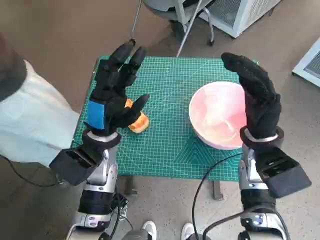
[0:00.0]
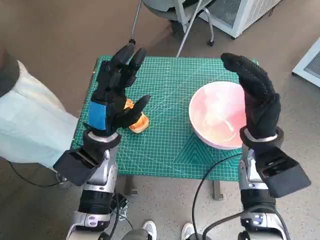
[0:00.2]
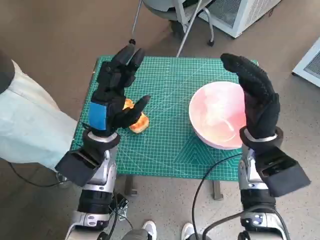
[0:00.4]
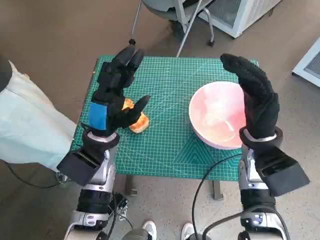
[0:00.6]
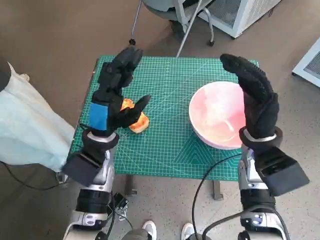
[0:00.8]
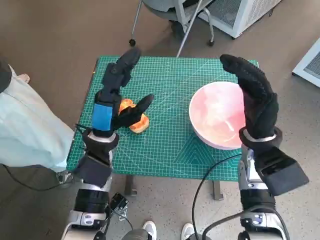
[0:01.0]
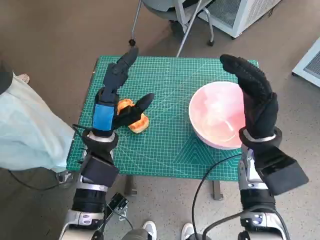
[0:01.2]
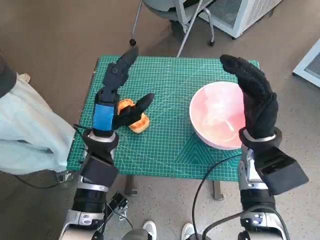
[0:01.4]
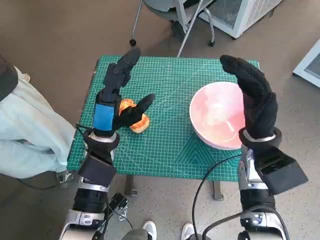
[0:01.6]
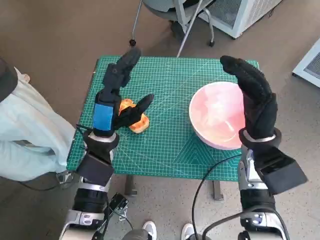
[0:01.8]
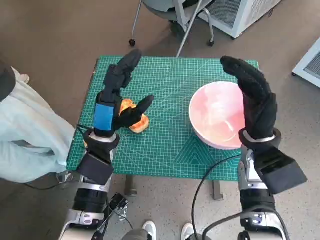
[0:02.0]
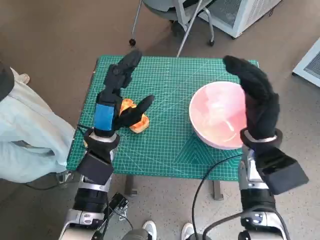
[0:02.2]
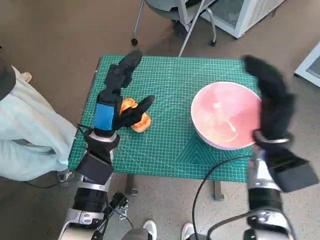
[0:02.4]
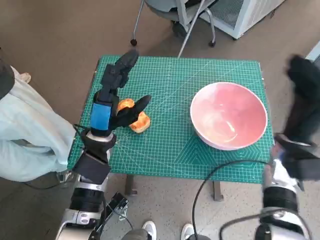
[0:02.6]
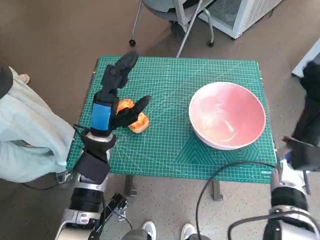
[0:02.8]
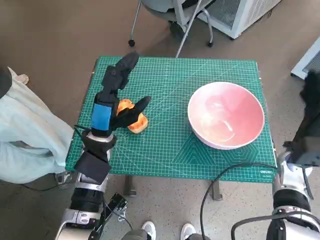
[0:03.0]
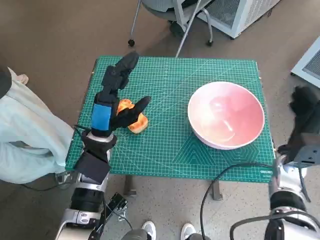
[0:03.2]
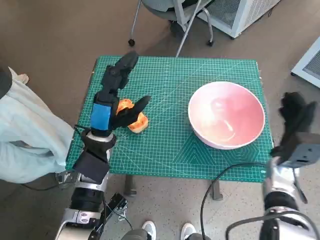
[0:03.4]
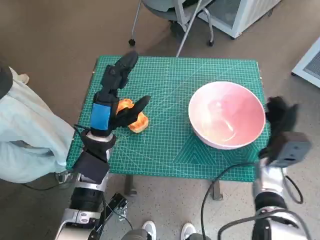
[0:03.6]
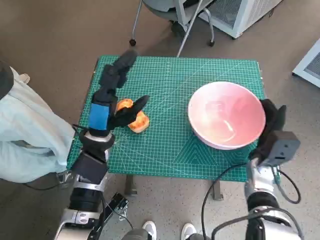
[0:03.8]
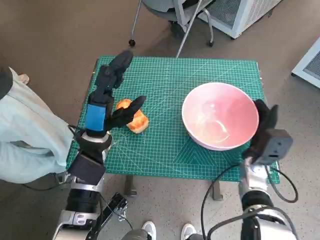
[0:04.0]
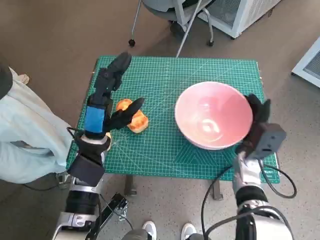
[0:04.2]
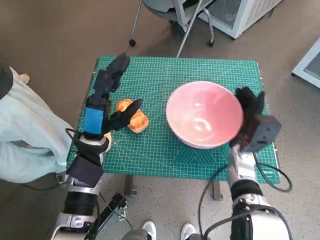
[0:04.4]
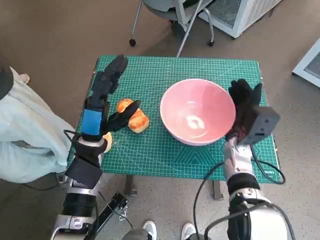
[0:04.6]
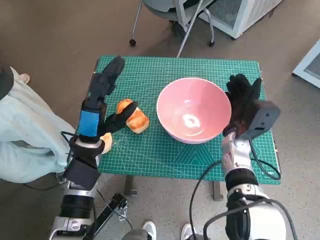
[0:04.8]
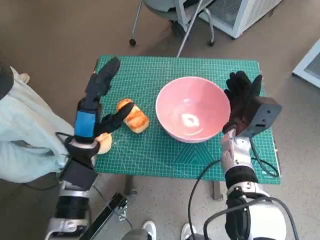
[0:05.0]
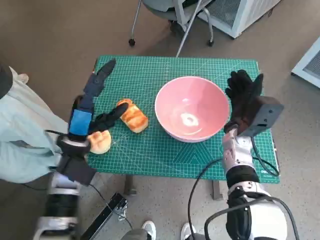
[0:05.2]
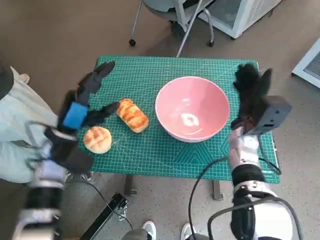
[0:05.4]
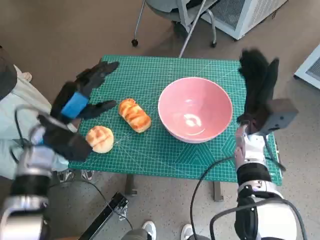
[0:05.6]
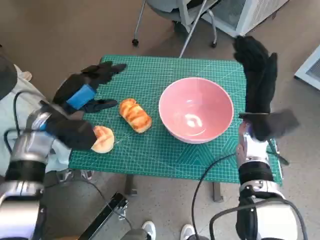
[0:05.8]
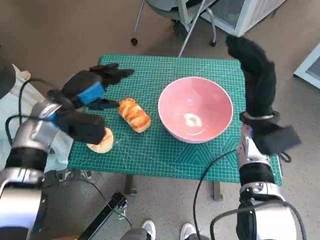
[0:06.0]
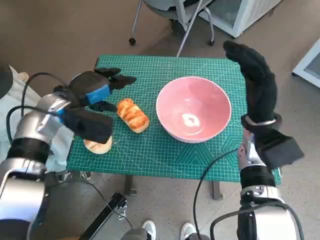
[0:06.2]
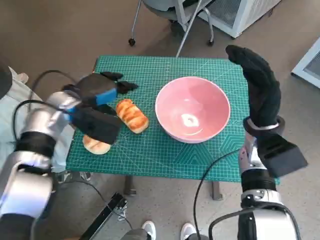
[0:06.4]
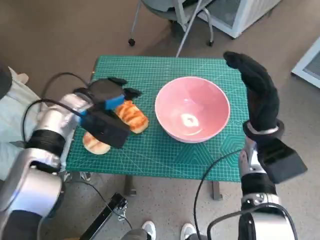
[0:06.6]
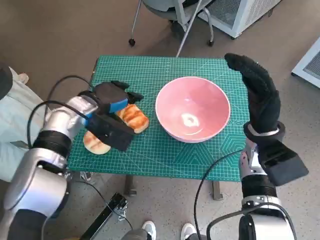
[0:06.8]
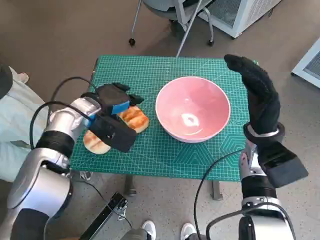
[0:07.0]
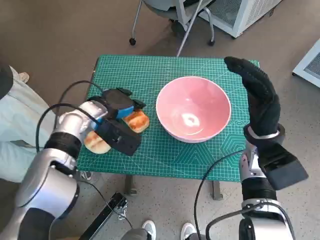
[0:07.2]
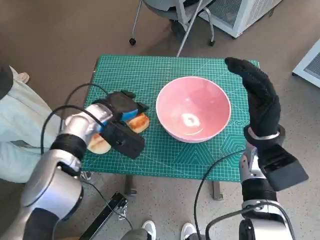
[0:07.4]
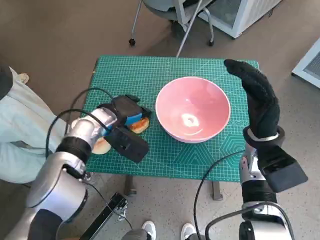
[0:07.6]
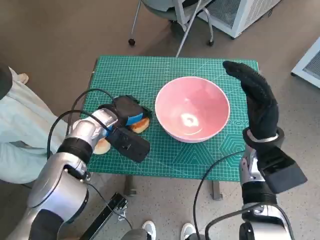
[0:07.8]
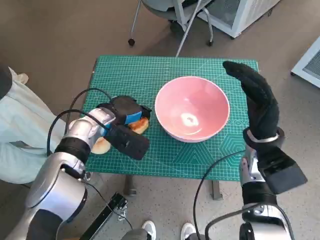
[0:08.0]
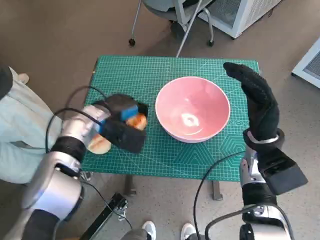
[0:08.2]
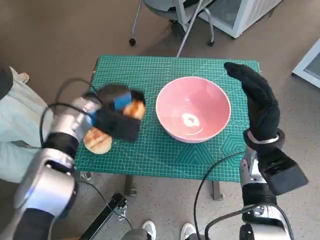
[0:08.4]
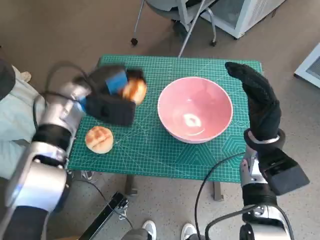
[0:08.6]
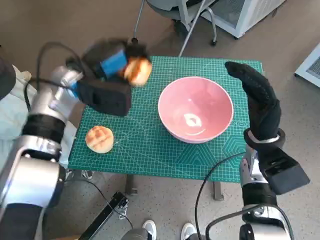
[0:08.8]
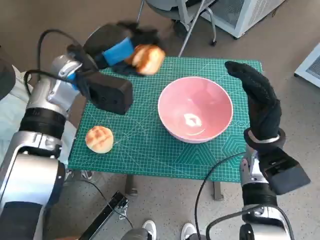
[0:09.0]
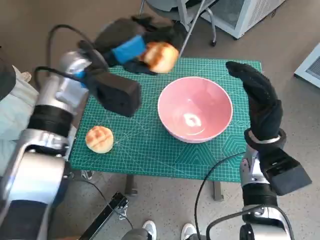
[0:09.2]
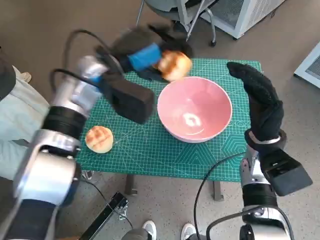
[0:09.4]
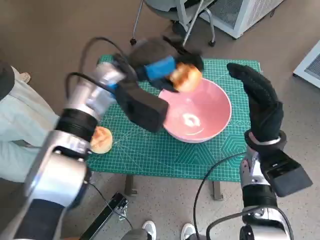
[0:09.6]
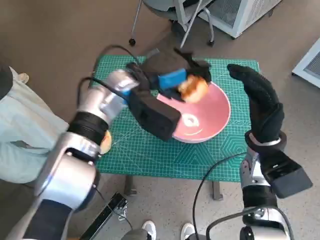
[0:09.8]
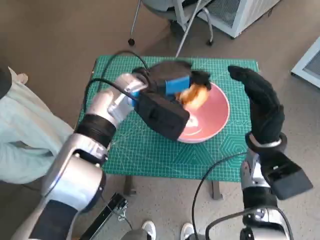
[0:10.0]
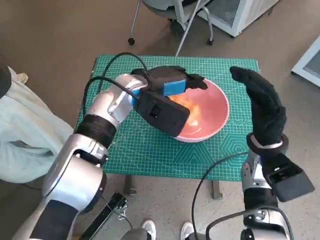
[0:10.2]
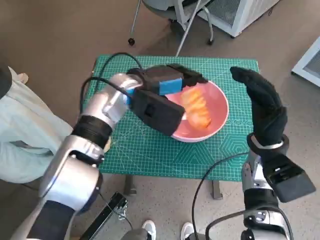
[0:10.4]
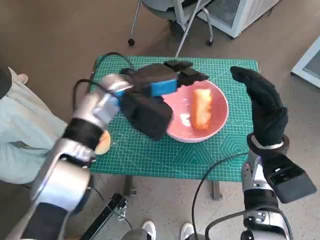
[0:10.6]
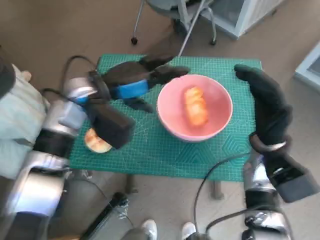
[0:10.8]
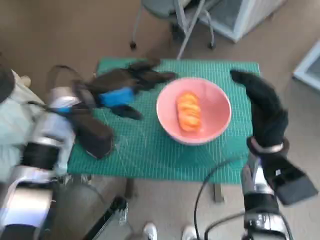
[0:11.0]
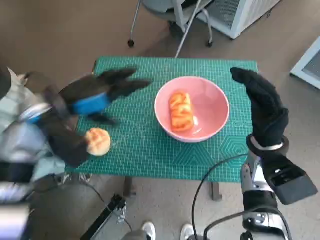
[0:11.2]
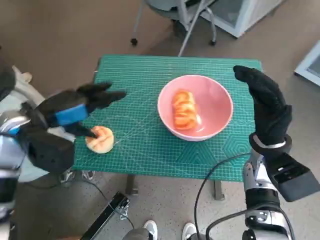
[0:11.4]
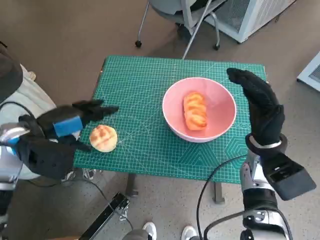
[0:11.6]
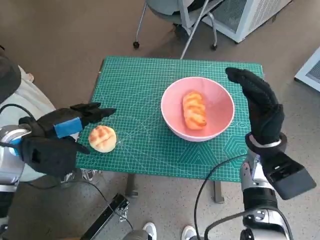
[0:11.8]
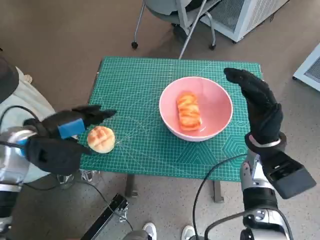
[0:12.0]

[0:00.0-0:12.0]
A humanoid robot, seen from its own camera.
Task of the whole recording: Push the bowl to the center of the table and put the bread into the bowl.
Step, 0:00.0 to 0:05.2: Move the pink bowl to the center of table with right hand.
Step, 0:05.4 to 0:07.8: Grasp the long bread with left hand.
Step, 0:08.0 to 0:10.0: Place the long bread in pink bowl with left hand.
0:01.6 to 0:03.0: The right hand travels to the right and downward by roughly 10 cm.
0:03.0 to 0:04.4: The right hand heads to the left, covering about 10 cm.
0:04.4 to 0:06.0: The left hand is displaced to the left, upward and forward by some 10 cm; the right hand moves upward, about 10 cm.
0:06.0 to 0:07.6: The left hand is displaced to the right and downward by roughly 10 cm.
0:07.6 to 0:09.0: The left hand goes approximately 15 cm upward.
0:09.0 to 0:10.4: The left hand goes about 10 cm to the right.
0:10.4 to 0:12.0: The left hand heads to the left and backward, covering about 20 cm.

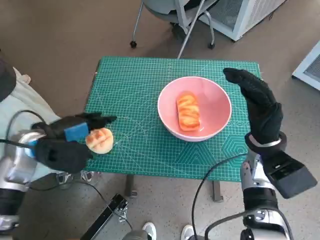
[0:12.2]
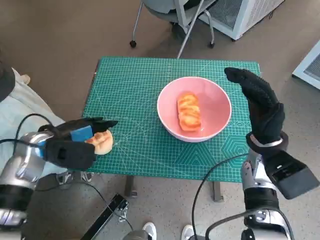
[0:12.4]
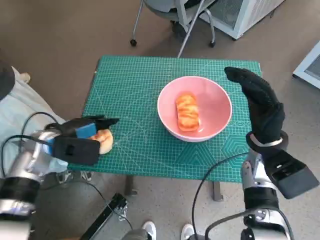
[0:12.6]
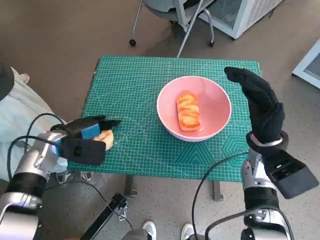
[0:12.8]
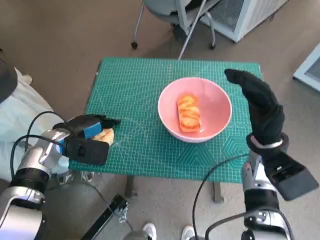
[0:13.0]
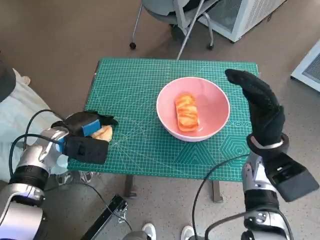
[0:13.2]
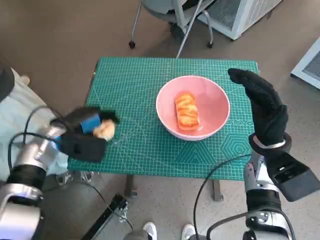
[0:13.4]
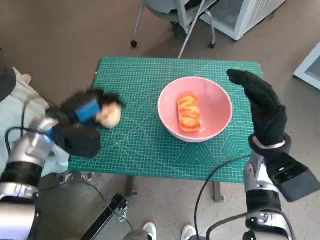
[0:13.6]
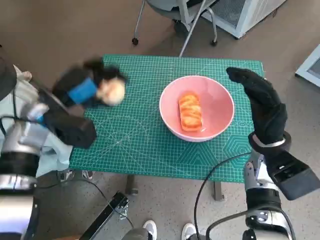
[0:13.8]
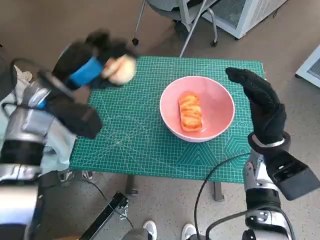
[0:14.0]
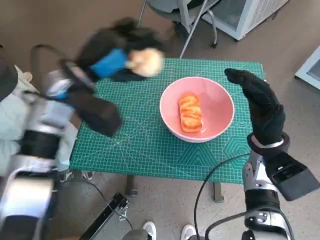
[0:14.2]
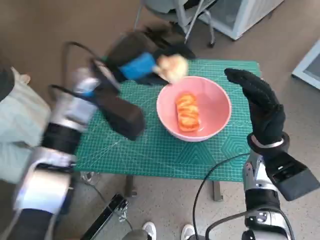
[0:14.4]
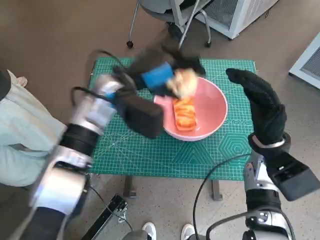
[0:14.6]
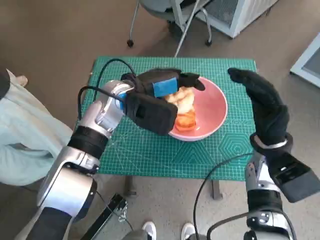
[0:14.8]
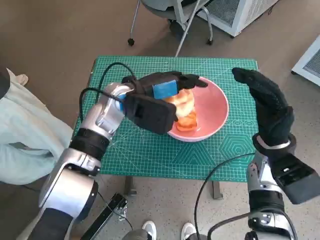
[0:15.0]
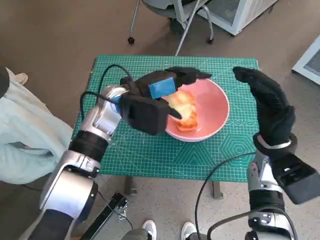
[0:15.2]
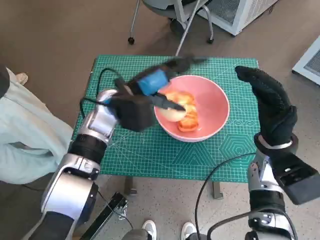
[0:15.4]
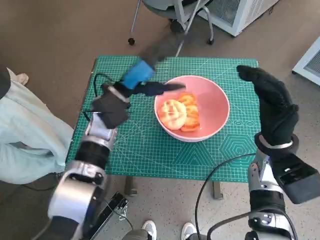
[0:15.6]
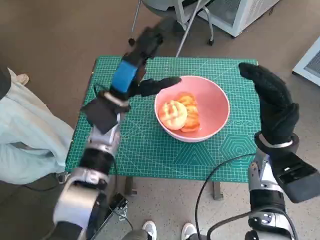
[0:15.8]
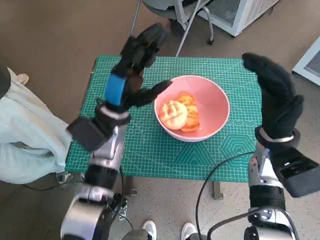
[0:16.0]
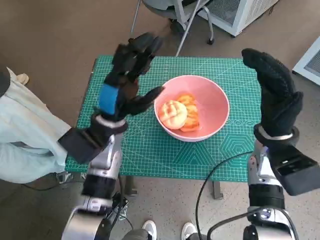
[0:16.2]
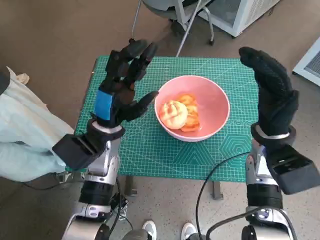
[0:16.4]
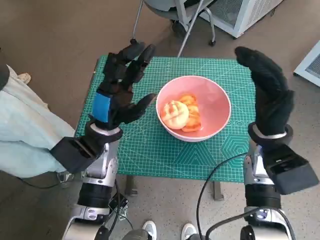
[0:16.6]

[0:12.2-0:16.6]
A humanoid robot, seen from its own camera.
Task of the whole recording: Push the bowl to the center of the table and put the bread into the bowl.
Step, 0:13.2 to 0:15.2: Place the round bread in pink bowl with left hand.
0:13.6 to 0:15.2: The left hand heads to the right, covering some 15 cm.
0:15.2 to 0:16.6: The left hand heads backward and downward, covering some 10 cm.

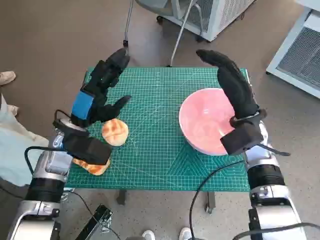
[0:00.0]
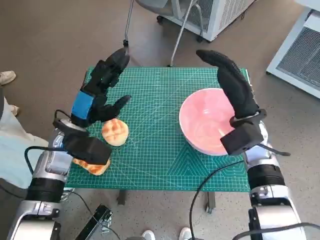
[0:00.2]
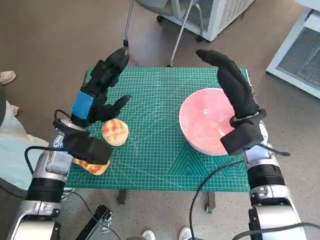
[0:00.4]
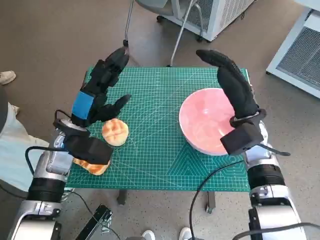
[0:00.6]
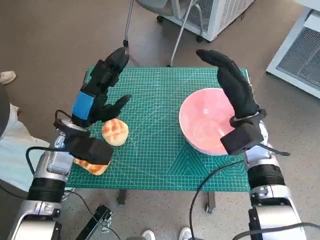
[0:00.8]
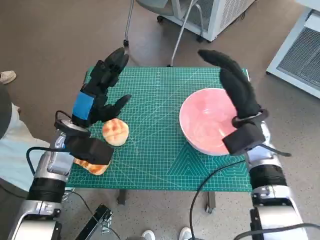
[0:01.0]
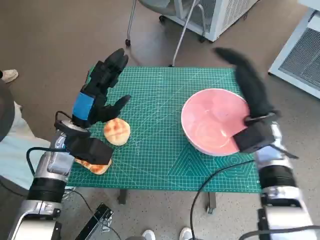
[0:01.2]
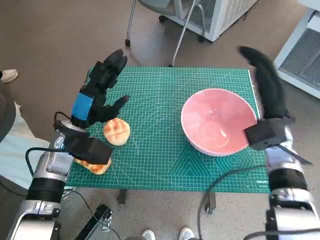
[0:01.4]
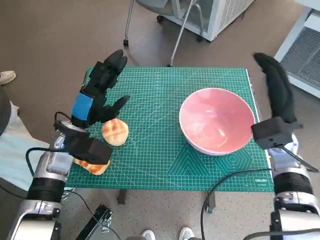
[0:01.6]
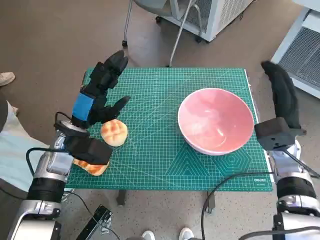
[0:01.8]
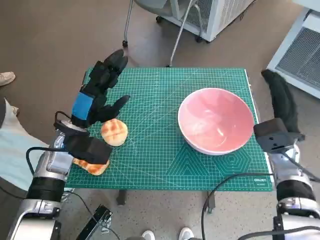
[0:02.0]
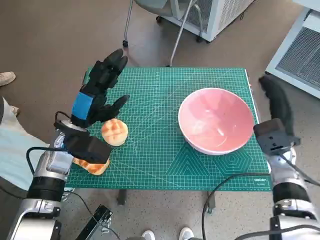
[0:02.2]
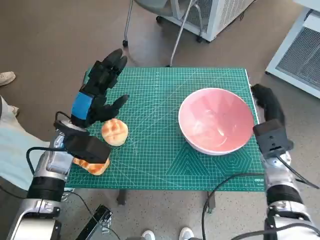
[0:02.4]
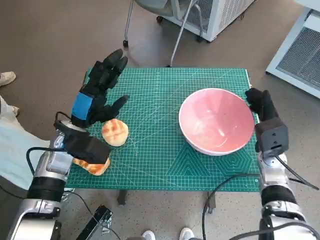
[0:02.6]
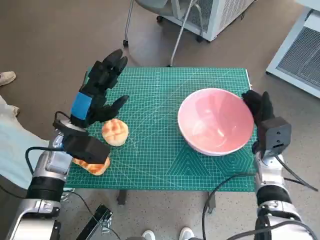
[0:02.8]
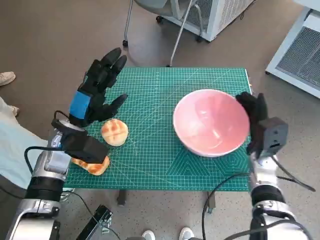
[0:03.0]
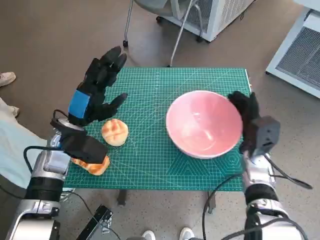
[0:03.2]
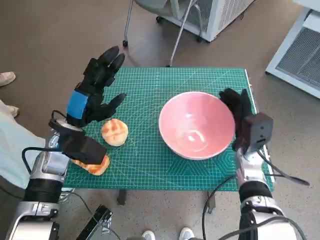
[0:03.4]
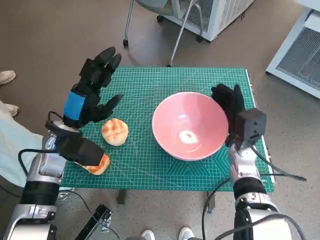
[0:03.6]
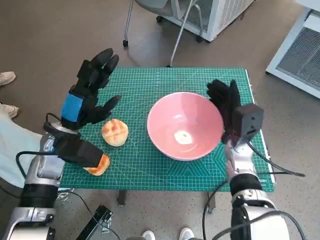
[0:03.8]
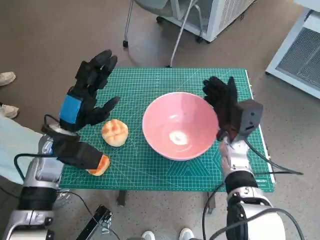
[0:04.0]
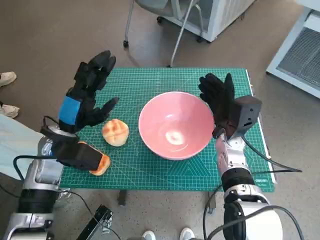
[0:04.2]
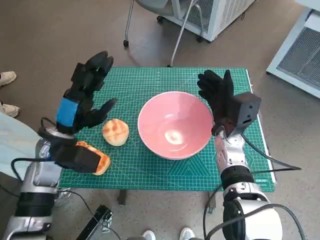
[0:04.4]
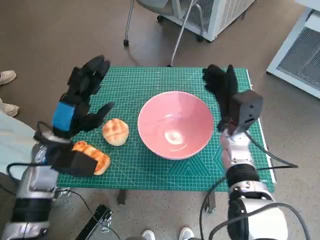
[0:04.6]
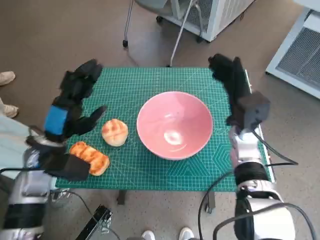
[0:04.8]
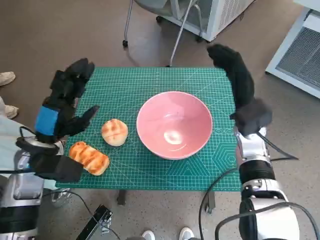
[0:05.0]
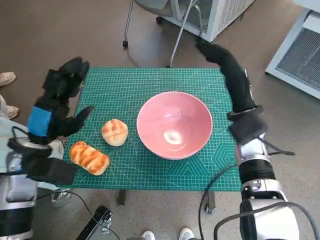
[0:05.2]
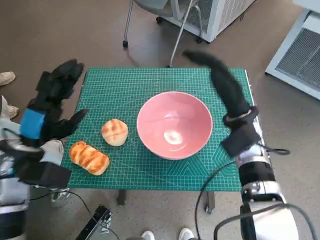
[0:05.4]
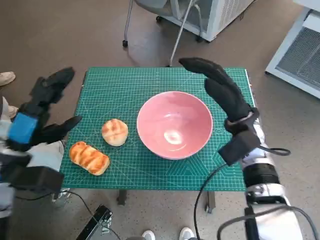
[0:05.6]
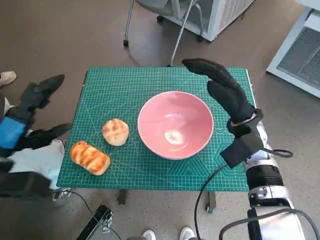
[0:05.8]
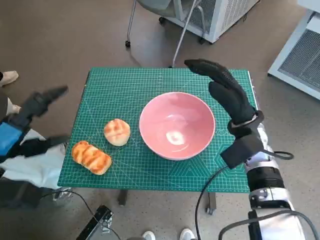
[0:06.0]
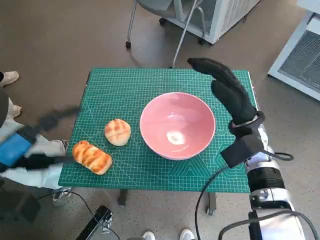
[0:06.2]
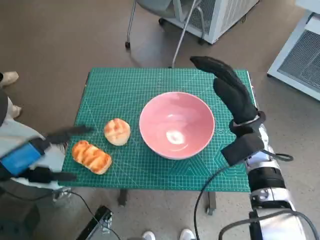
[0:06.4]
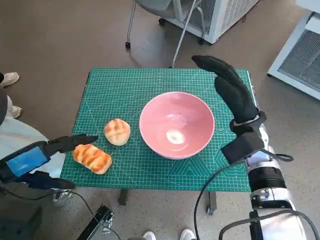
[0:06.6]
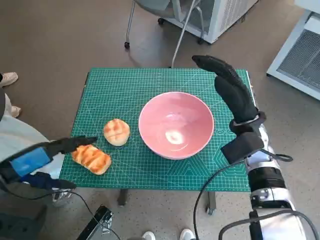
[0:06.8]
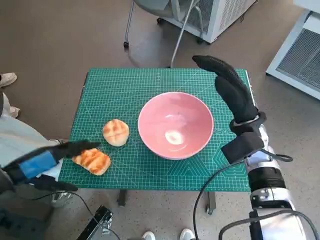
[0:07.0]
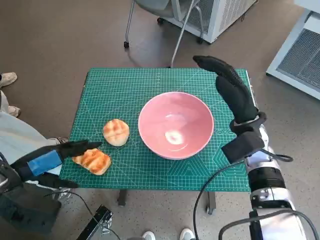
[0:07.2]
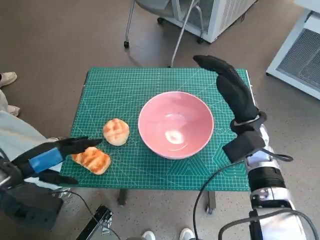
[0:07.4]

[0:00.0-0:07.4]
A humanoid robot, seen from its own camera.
Task of the whole recording: Push the bowl to the center of the table and put the bread into the bowl.
Step, 0:00.0 to 0:04.6: Move the pink bowl to the center of table with right hand.
0:01.4 to 0:03.0: The right hand moves downward, some 10 cm.
0:03.0 to 0:04.4: The right hand travels to the left by approximately 10 cm.
0:04.4 to 0:06.0: The right hand goes some 5 cm upward, while the left hand travels to the left and backward by roughly 10 cm.
